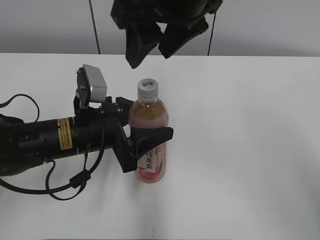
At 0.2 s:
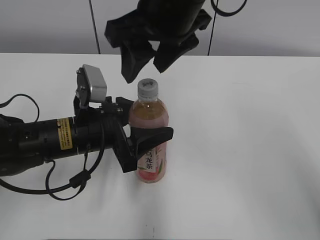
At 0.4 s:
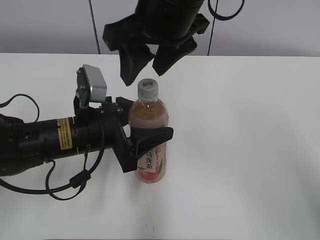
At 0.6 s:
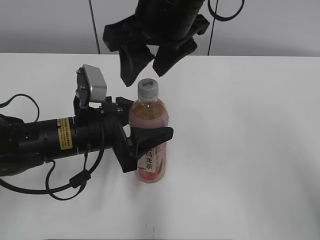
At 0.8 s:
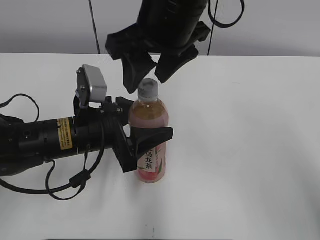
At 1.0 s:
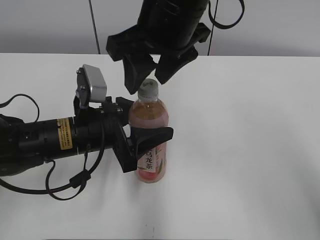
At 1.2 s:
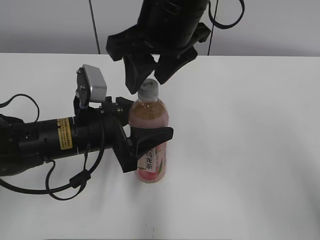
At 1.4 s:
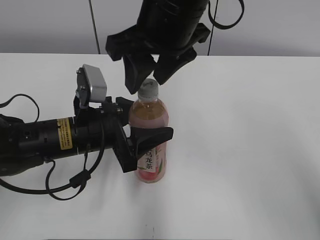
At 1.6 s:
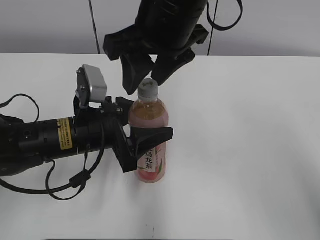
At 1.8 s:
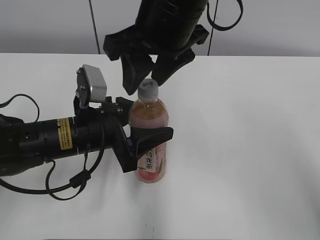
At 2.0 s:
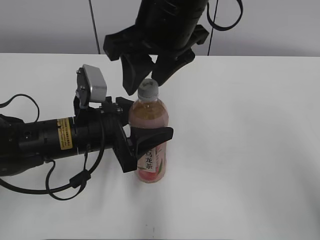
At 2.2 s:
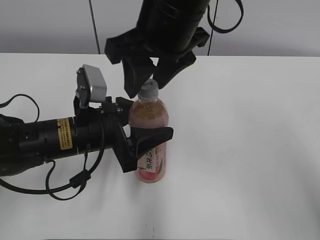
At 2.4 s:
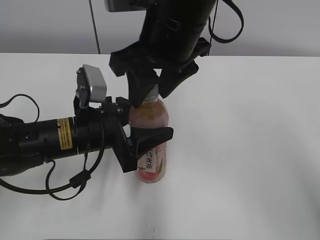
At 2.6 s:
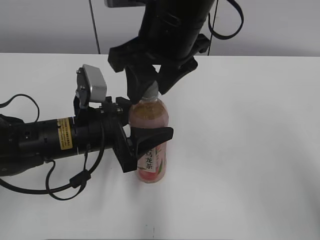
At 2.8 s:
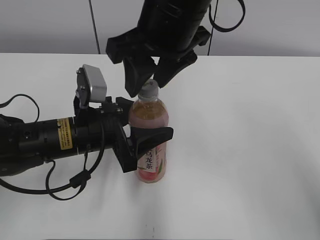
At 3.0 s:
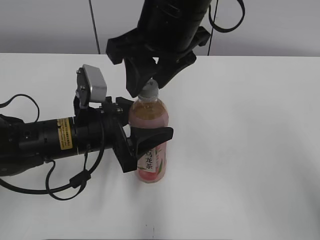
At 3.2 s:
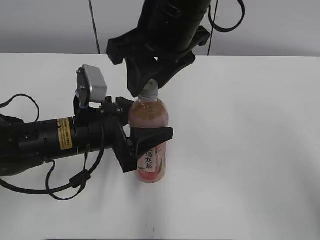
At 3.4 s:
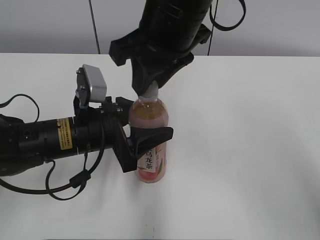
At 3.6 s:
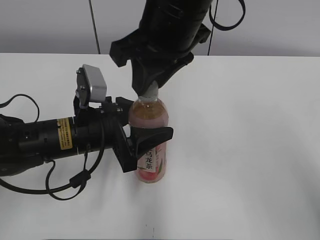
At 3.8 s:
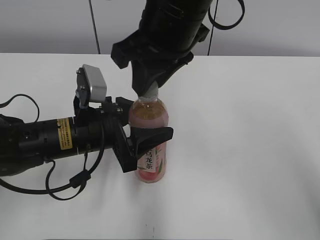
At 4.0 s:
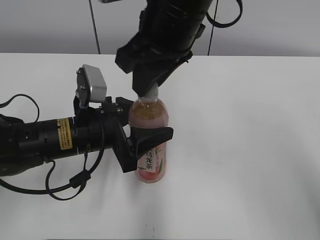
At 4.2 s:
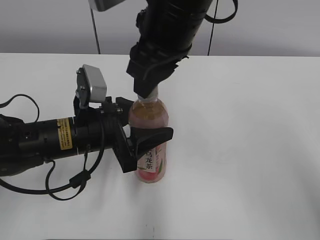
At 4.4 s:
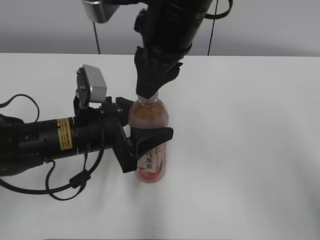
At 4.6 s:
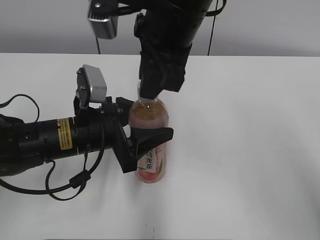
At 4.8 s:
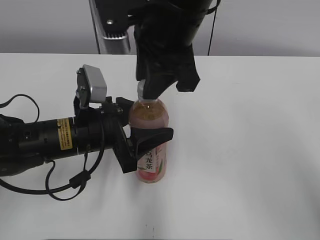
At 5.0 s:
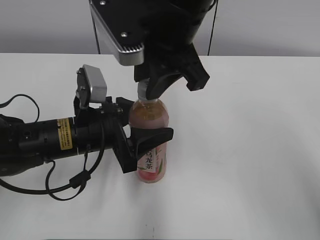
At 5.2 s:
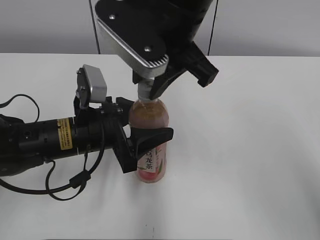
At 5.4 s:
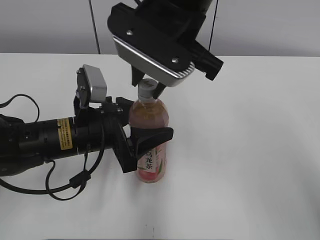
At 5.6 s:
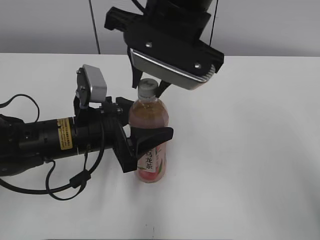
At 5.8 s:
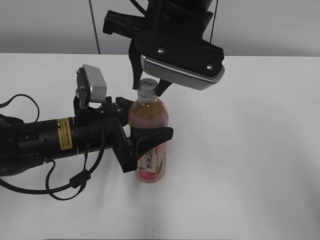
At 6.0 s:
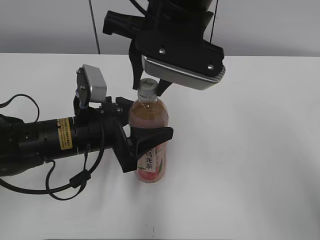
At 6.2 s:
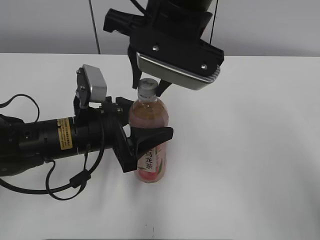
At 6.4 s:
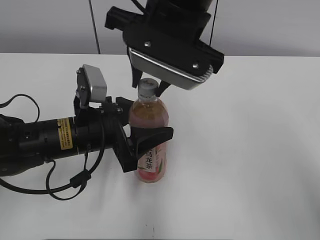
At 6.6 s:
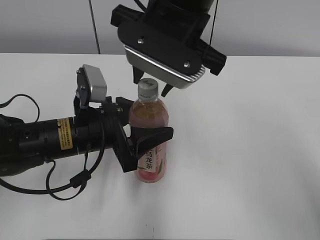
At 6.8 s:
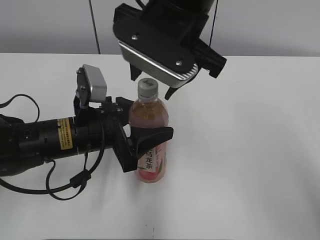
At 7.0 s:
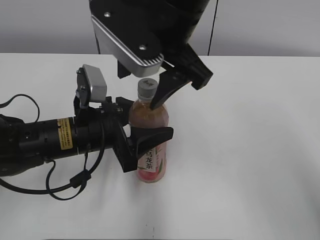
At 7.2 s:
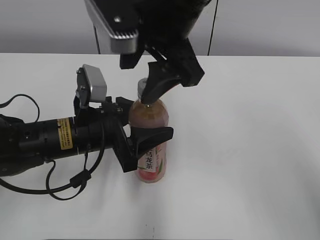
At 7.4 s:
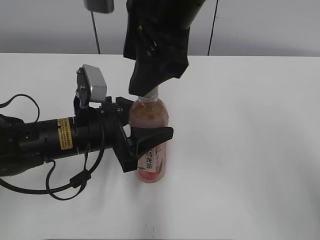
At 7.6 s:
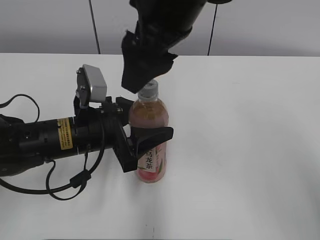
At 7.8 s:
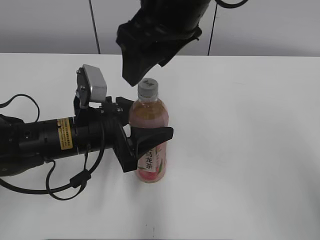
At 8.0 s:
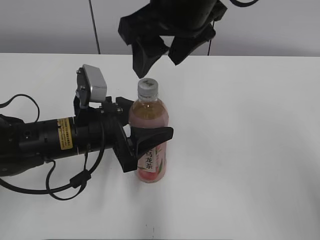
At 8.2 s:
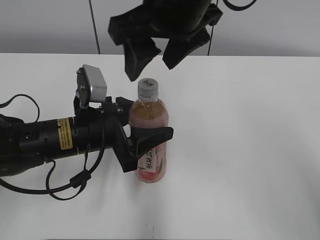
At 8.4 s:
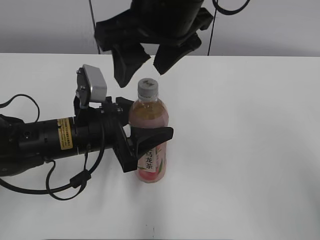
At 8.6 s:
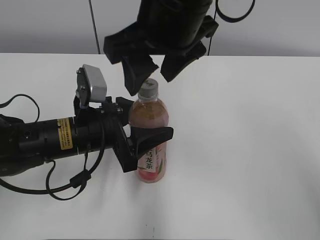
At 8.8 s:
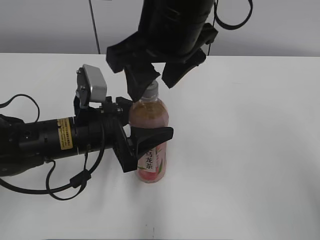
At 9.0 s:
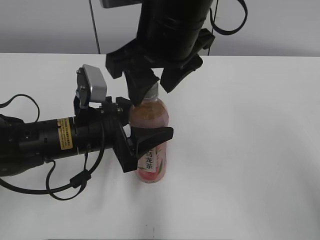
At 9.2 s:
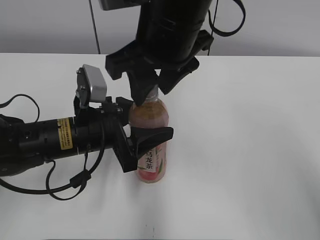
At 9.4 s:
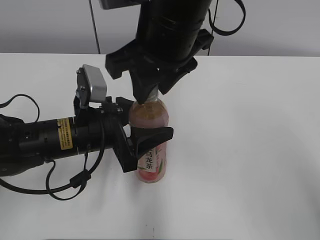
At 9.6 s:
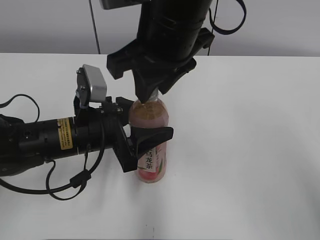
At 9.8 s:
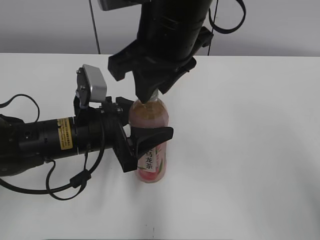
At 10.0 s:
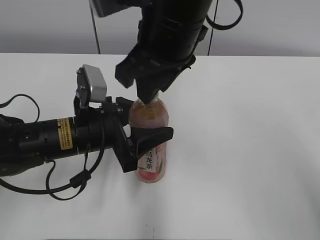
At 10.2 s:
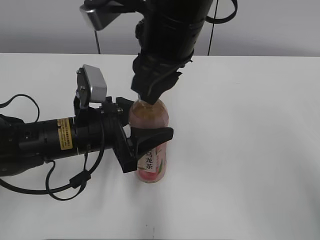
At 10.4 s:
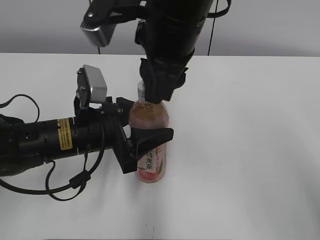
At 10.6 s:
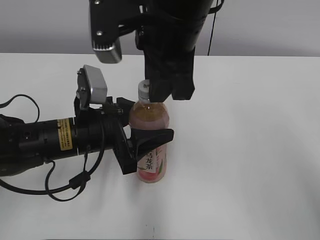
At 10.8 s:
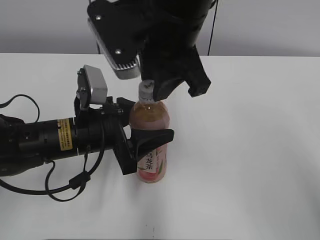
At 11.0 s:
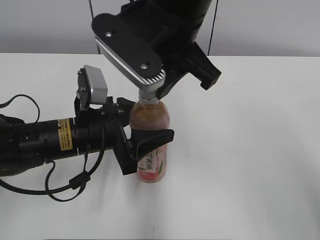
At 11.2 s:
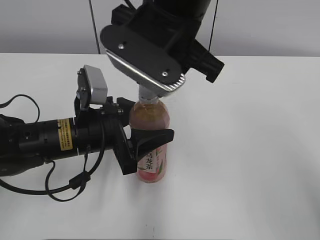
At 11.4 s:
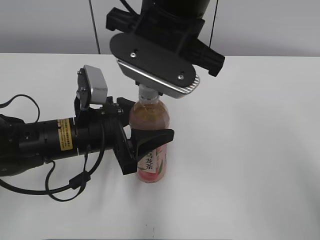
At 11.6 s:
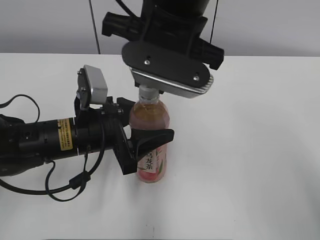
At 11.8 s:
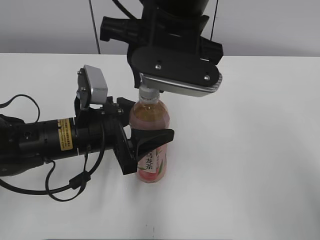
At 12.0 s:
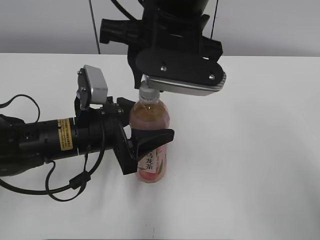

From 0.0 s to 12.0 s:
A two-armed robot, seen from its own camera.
From 0.0 s to 3.0 s: The grippers make only small movements.
From 3.0 s to 4.4 s: The right gripper closes up.
From 6.0 s to 7.6 s: The right gripper opens up.
From 9.0 s to 10.4 s: The right gripper closes up.

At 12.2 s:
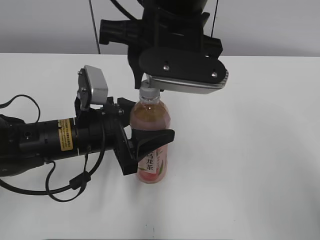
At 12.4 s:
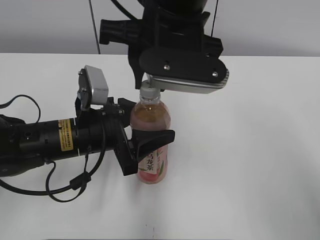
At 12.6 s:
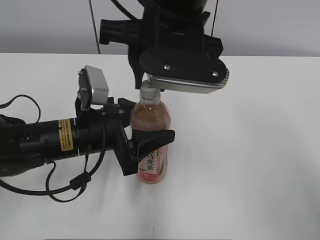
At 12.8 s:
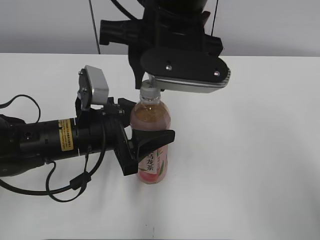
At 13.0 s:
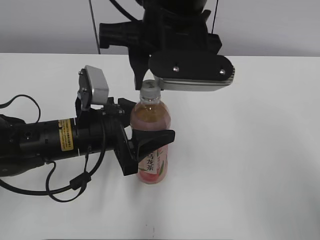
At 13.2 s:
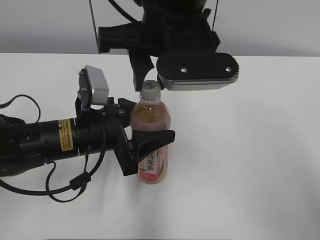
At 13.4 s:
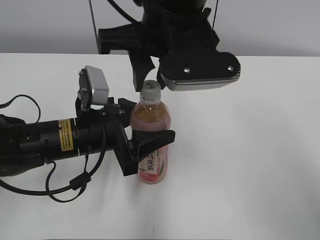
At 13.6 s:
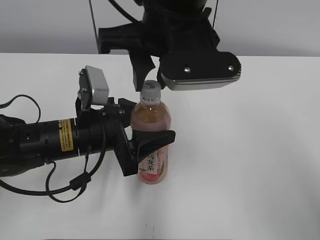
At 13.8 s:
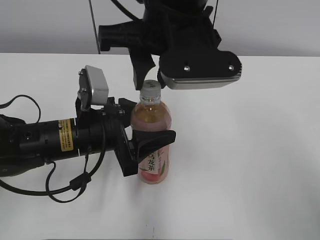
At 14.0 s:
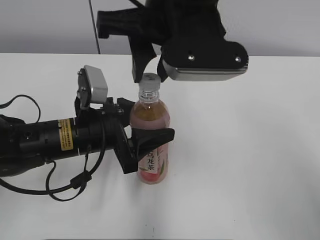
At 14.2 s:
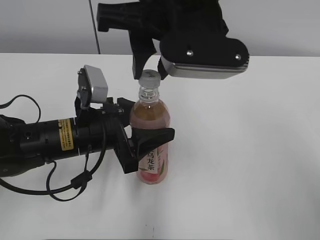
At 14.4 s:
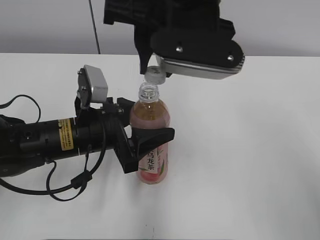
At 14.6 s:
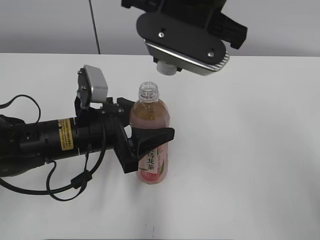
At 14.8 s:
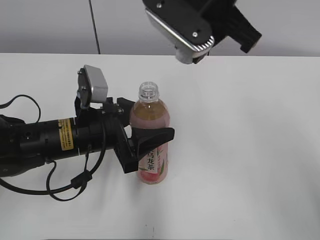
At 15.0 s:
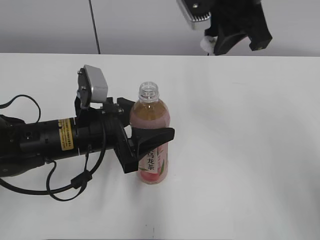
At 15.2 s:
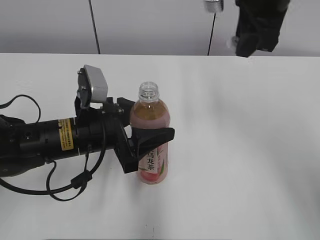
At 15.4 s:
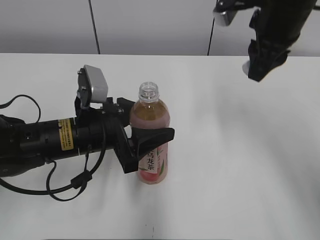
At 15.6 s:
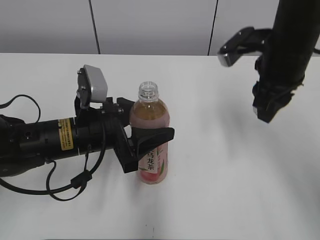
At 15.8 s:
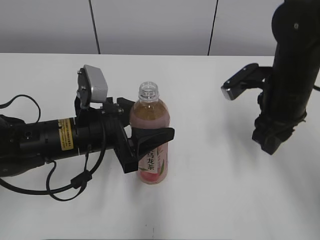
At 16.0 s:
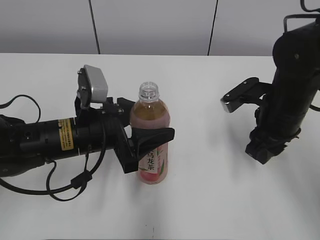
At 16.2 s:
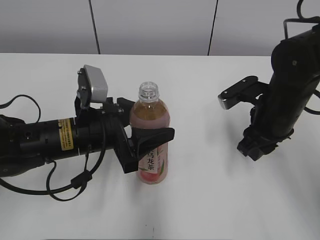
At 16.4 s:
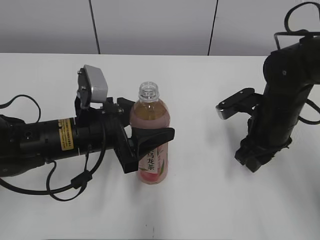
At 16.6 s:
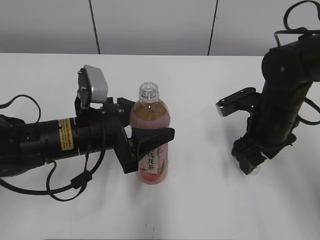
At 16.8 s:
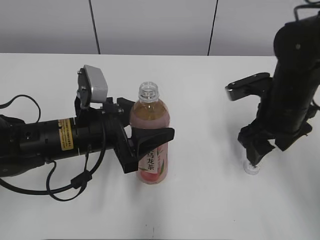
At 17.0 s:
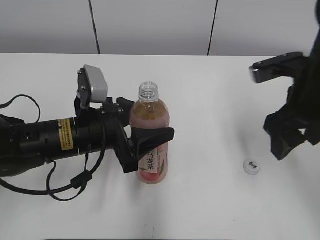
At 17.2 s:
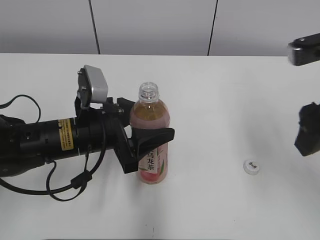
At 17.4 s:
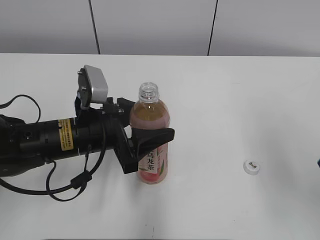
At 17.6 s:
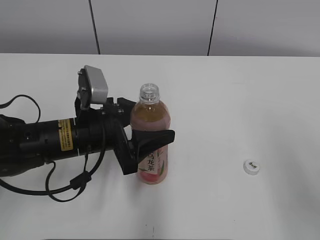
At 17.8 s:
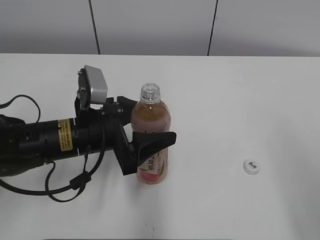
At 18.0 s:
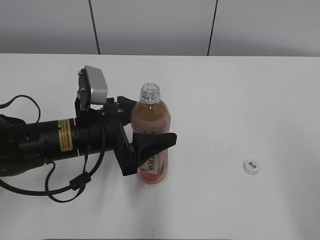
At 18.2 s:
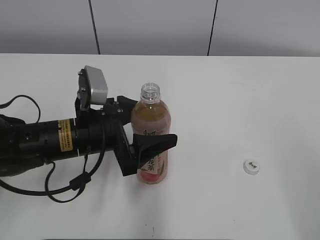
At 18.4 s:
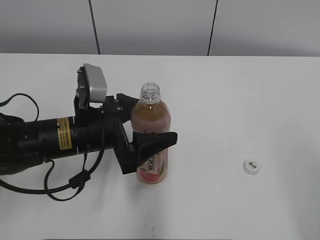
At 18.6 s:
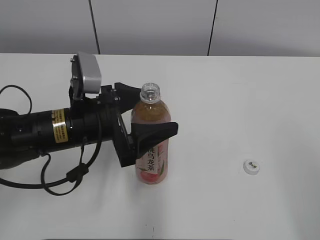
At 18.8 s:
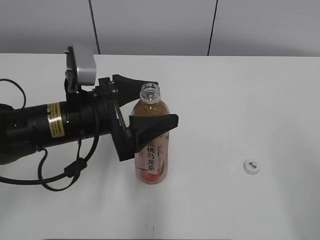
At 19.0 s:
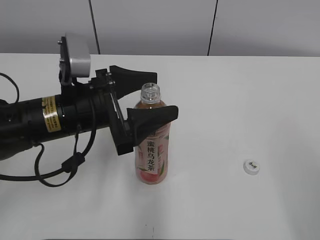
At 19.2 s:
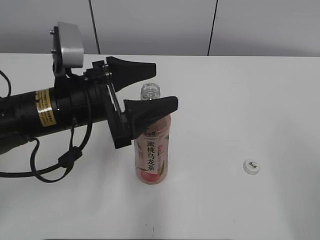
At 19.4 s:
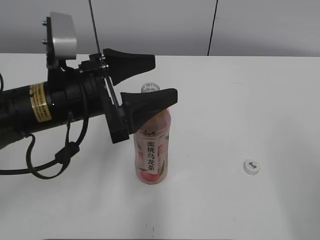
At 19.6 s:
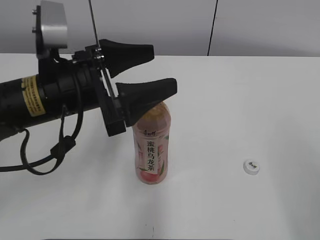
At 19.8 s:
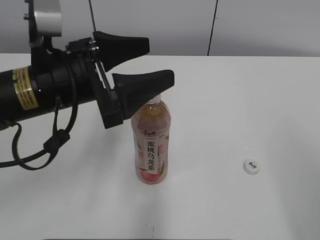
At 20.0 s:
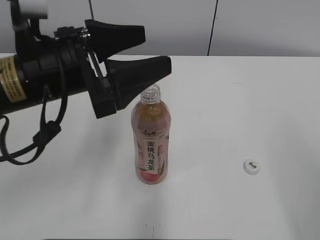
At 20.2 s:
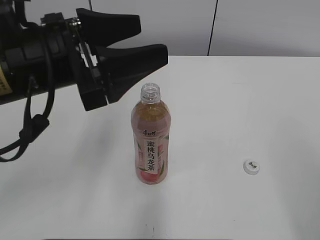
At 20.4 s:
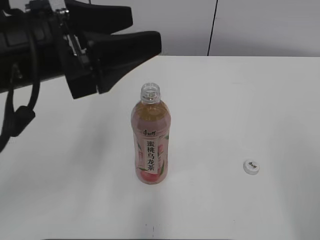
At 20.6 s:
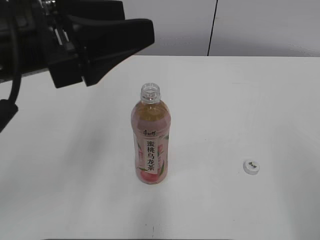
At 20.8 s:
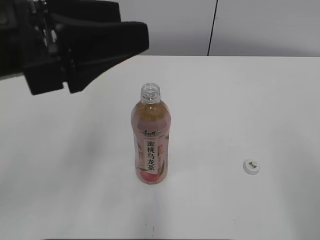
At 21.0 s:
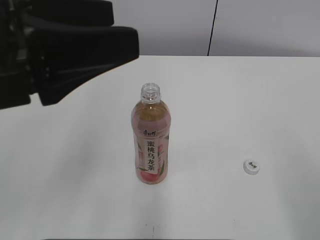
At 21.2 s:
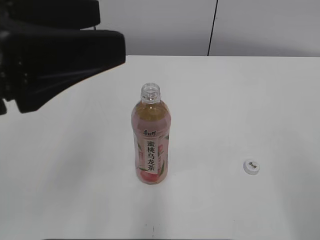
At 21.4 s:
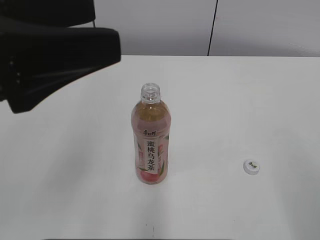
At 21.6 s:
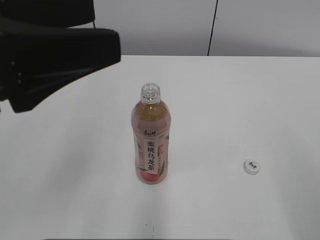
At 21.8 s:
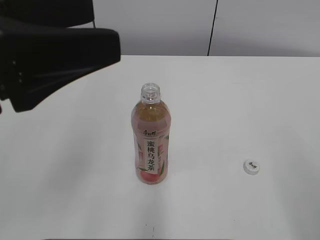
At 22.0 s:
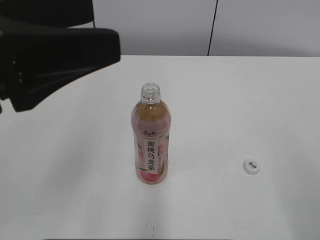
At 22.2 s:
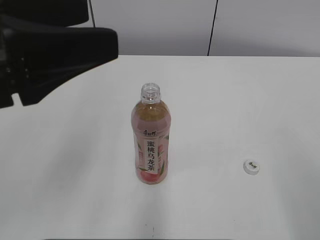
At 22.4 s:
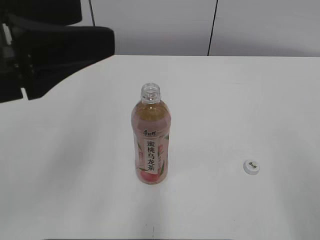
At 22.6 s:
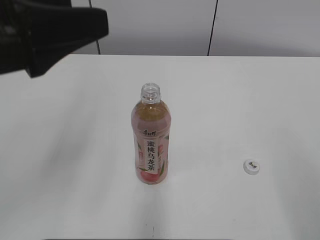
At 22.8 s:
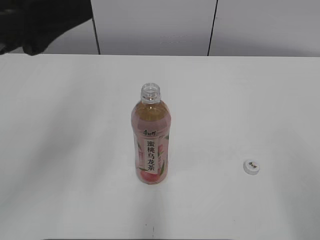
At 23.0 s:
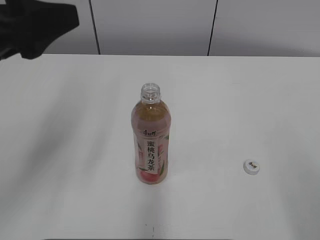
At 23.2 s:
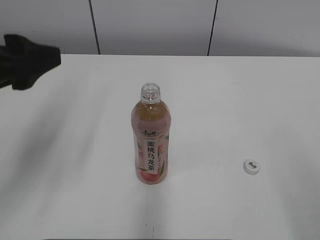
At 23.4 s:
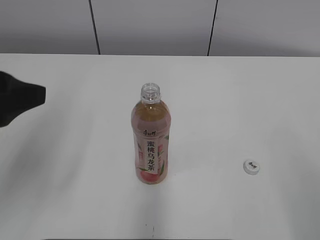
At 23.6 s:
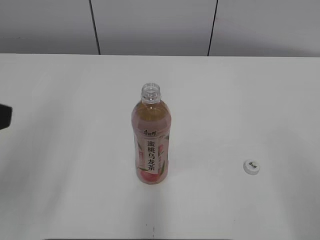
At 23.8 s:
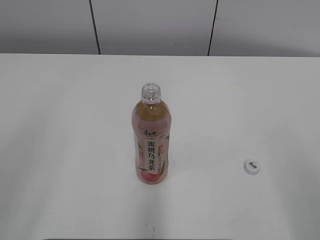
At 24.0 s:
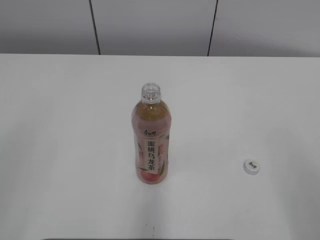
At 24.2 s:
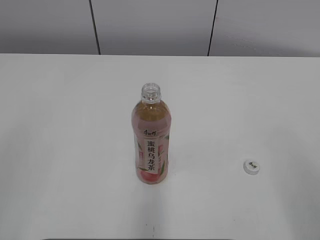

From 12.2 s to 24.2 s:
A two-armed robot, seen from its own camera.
Step, from 14.2 s to 16.4 s: Place the bottle cap on the right.
From 12.2 s to 13.8 s: There are only small adjustments of the grippers.
From 13.8 s to 15.2 s: The right gripper is displaced to the right and forward by roughly 15 cm.
From 15.2 s to 16.6 s: The right gripper heads downward, covering approximately 20 cm, and opens.
From 16.6 s to 18.2 s: The right gripper travels backward and upward by roughly 30 cm.
From 18.2 s to 19.8 s: The left gripper moves upward, roughly 10 cm.
From 19.8 s to 21.2 s: The left gripper moves upward and backward, approximately 10 cm.
From 21.2 s to 22.6 s: The grippers stay close to where they were, moving slightly.
From 22.6 s to 24.2 s: The left gripper heads backward and to the left, covering approximately 20 cm.
